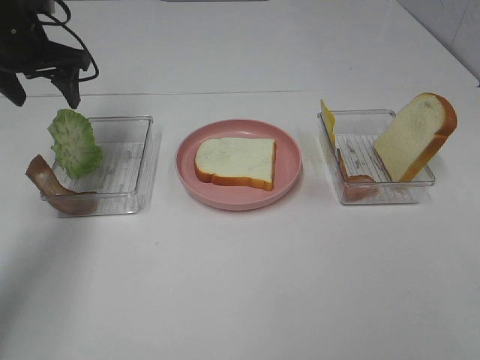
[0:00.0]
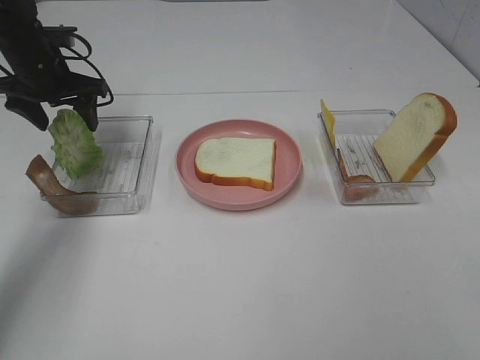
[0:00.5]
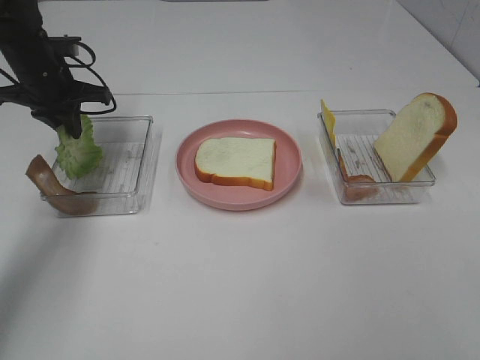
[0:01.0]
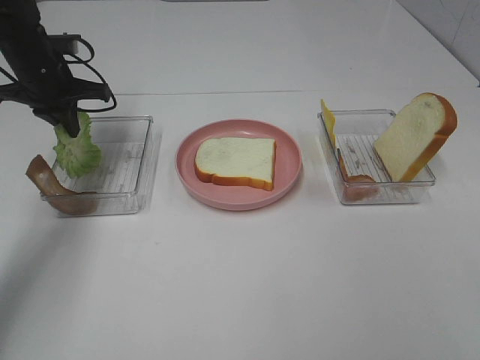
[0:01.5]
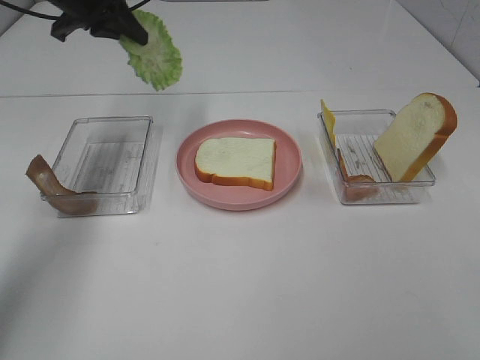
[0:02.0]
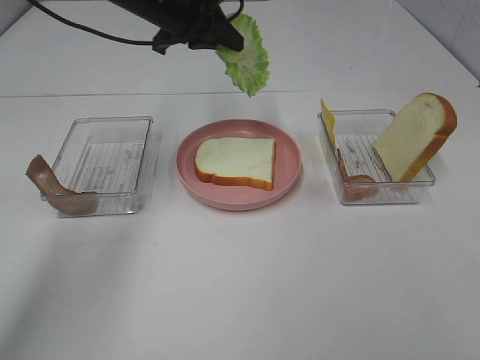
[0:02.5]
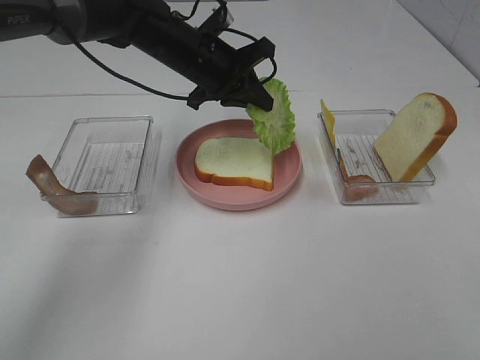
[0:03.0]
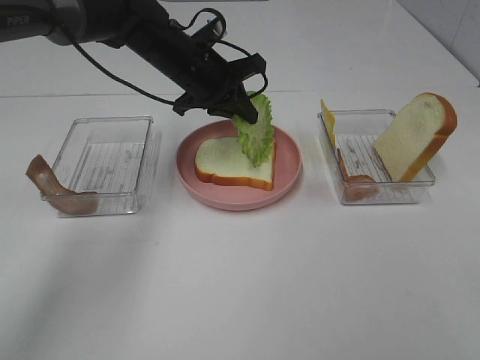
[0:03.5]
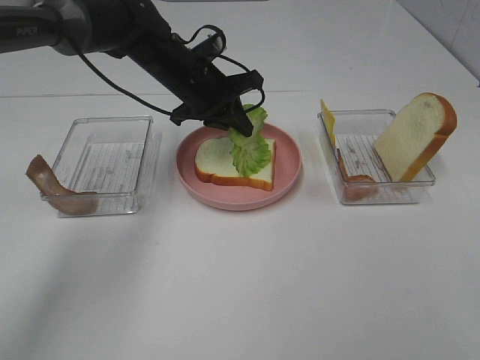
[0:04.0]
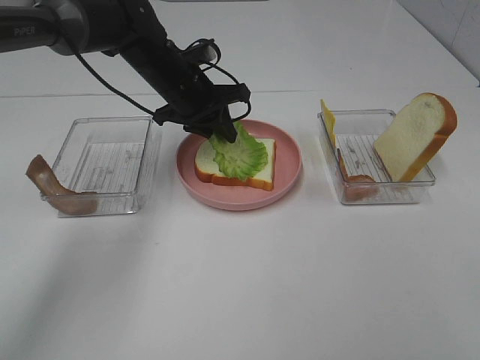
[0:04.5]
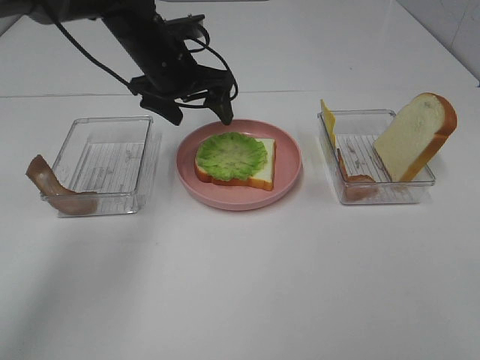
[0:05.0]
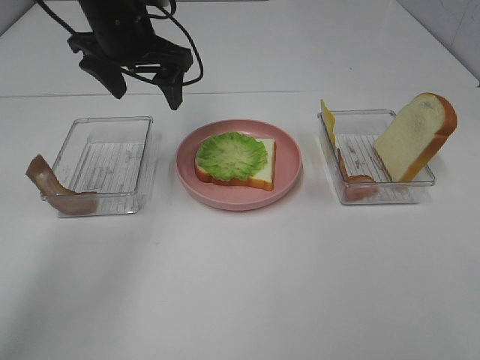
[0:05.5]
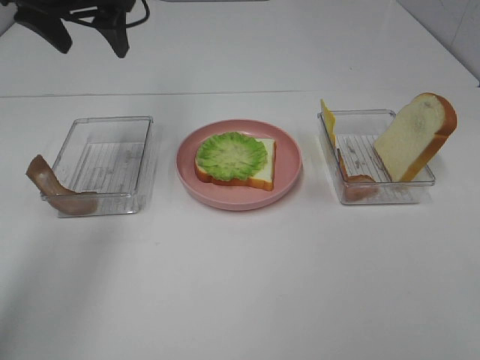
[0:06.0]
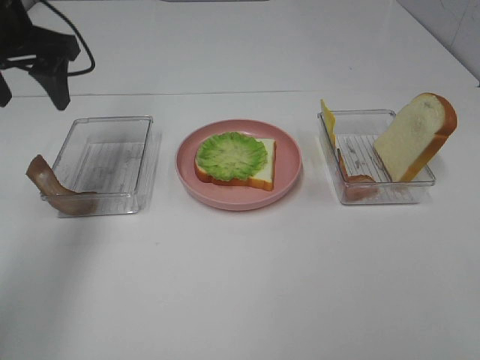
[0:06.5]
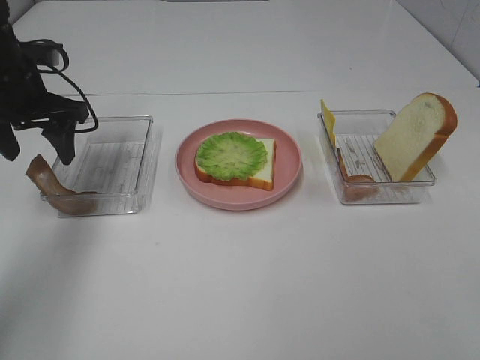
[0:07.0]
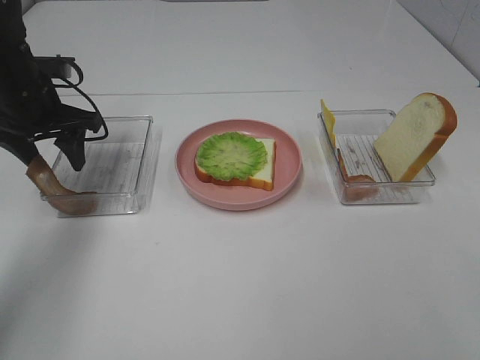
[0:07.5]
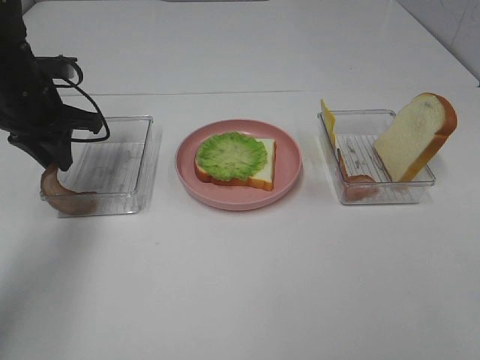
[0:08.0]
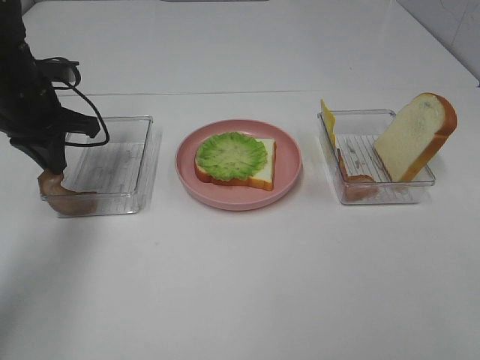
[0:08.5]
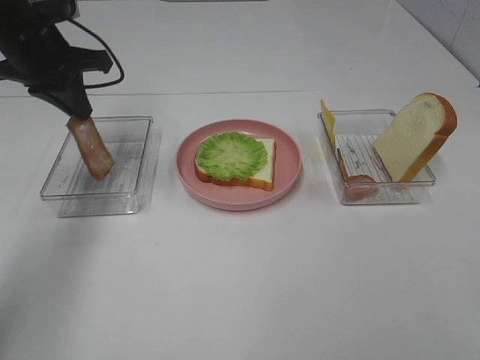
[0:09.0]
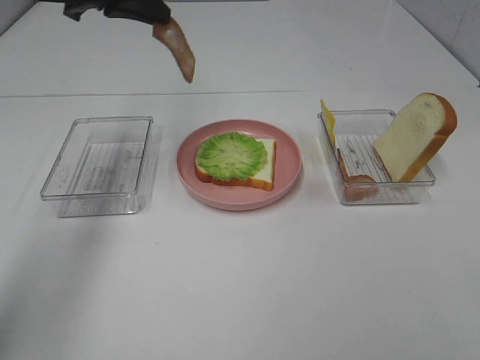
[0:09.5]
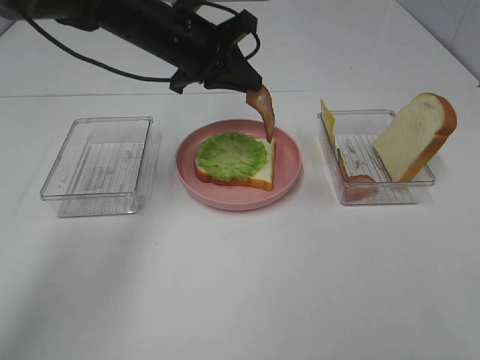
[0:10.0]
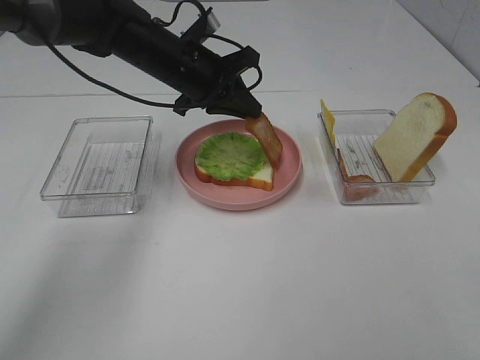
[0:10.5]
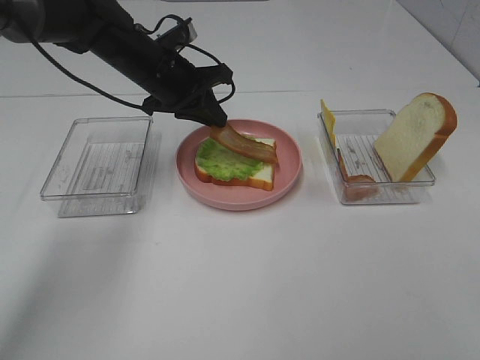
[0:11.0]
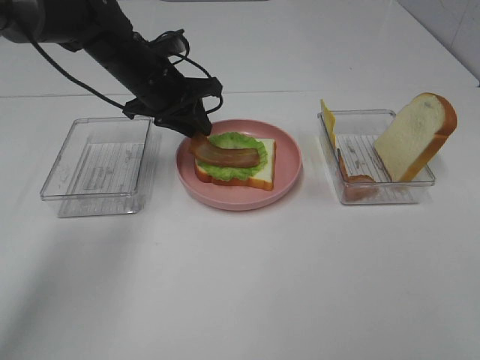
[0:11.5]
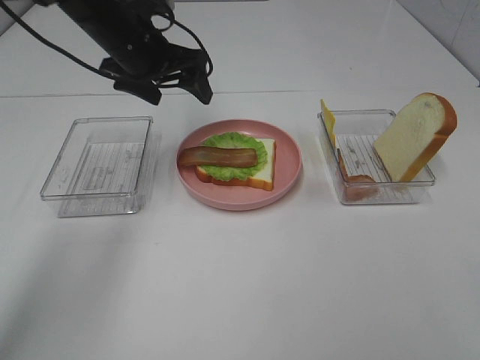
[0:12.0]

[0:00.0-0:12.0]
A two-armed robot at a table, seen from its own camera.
Task of the whole recording: Make sandwiches.
Step, 1.5 to 4.5 s: Left hand:place the lettuce slice on the bread slice.
Step, 5.0 to 8.0 s: Left hand:grab the bacon.
Step, 8.5 to 11.5 s: Left hand:place bacon on lettuce slice.
0.0 to 2.0 s: The left gripper shifts about 5 cm to the right, and closes up.
2.0 to 4.0 s: The left gripper is displaced to the right and downward by about 20 cm.
4.0 to 6.0 s: The left gripper travels upward and to the left by approximately 20 cm, and opens.
6.0 to 8.0 s: The left gripper goes some 15 cm downward, and closes its fingers.
8.0 to 10.0 s: The left gripper goes some 20 cm to the right.
10.0 to 12.0 s: The left gripper heads to the left, covering approximately 5 cm, and opens.

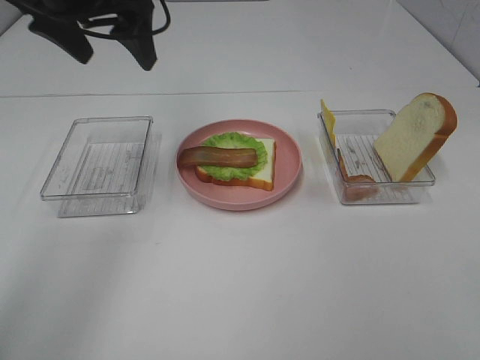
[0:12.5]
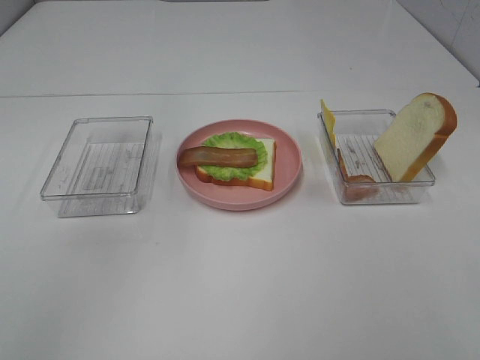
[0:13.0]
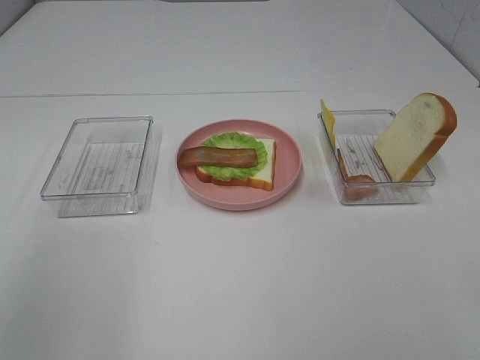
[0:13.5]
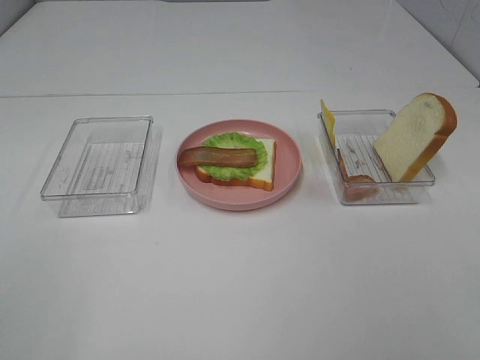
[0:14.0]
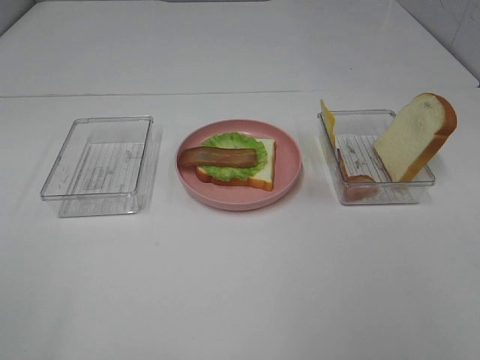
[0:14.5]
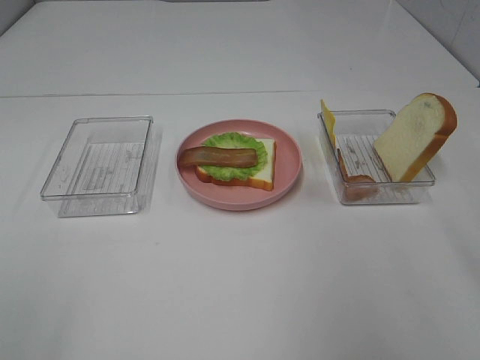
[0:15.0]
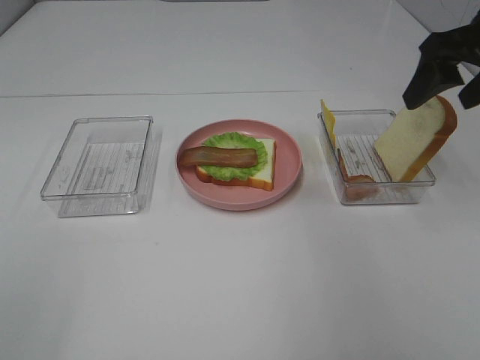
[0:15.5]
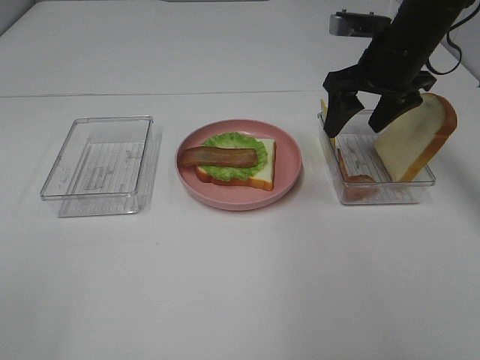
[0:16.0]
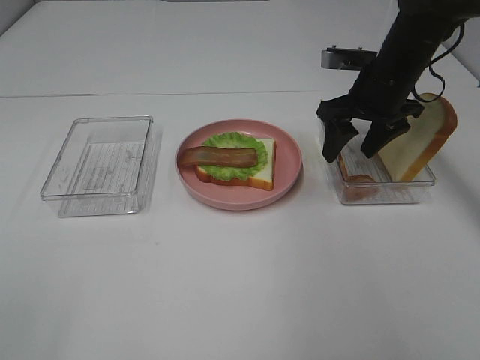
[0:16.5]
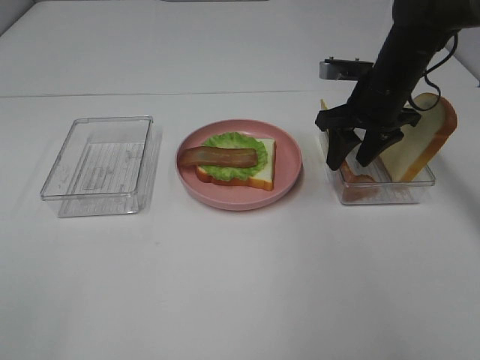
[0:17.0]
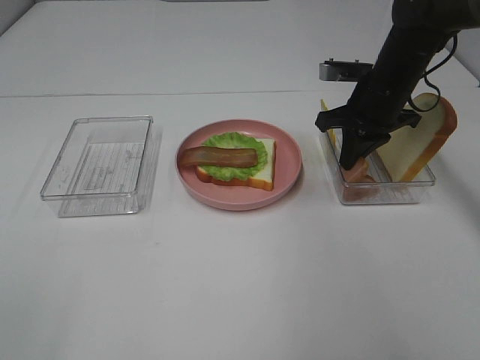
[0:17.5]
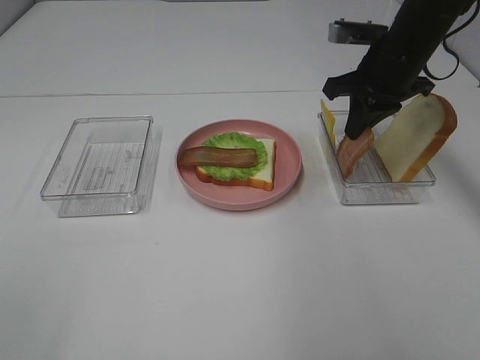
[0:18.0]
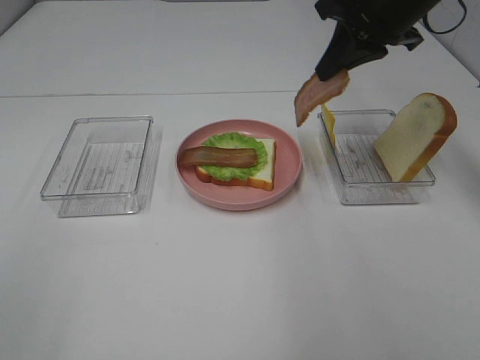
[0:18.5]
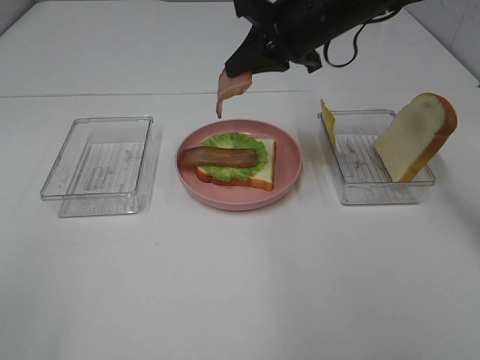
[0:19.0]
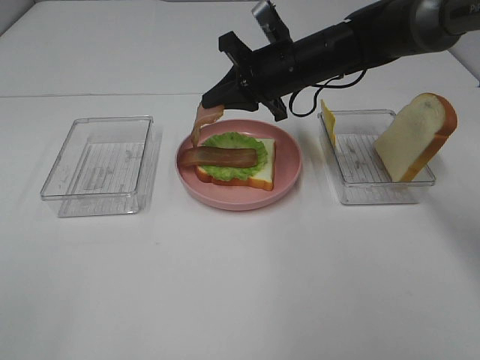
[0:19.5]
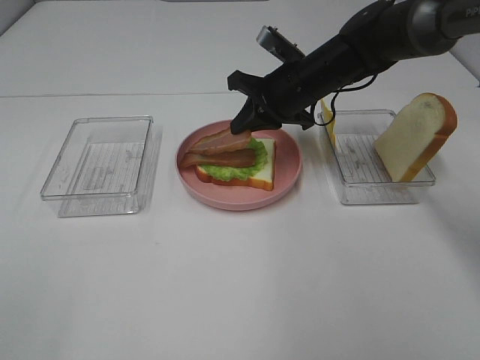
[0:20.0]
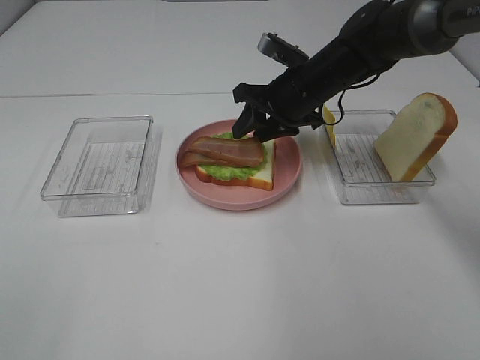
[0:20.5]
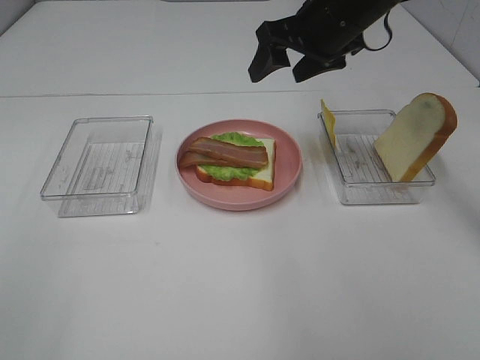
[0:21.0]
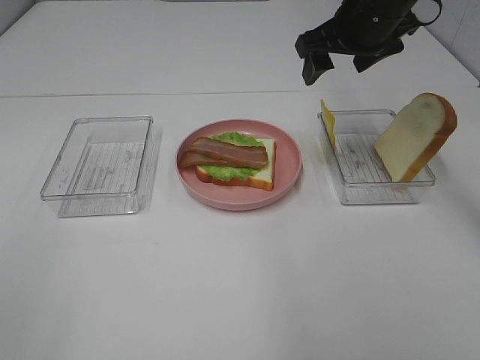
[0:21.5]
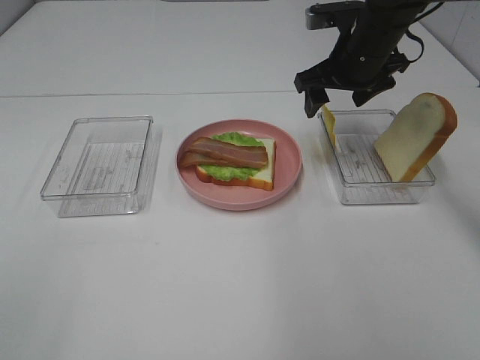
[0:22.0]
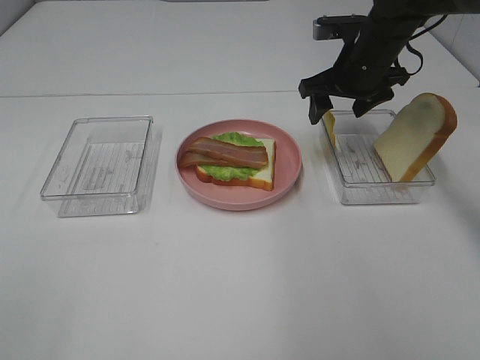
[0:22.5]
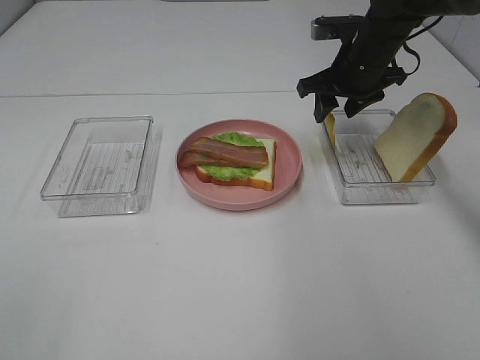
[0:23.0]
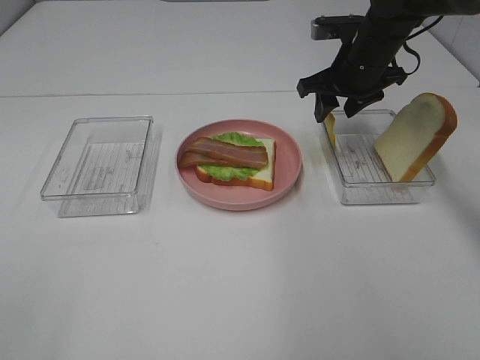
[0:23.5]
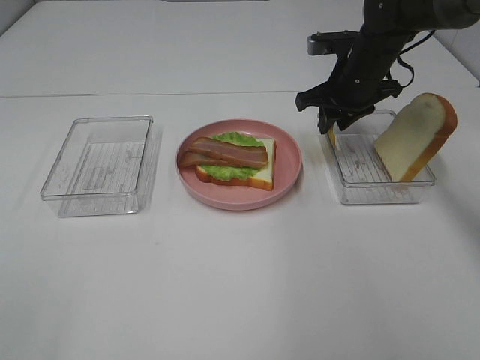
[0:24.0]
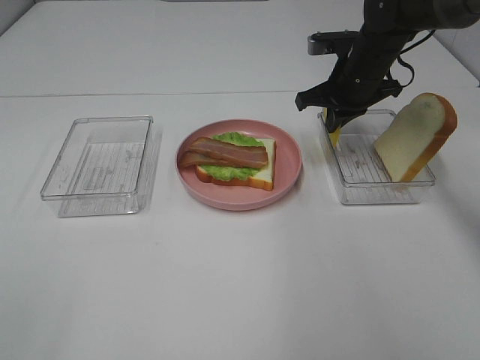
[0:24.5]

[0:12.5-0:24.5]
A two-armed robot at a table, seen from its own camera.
Task of the whole recording: Make sandwiches.
Step, 12.5 to 17.0 s: Right hand:grab the bacon.
Step, 17.5 to 20.5 s: Right hand:place bacon on bacon.
Step, 21.0 to 24.5 s: Right hand:grab the cheese slice.
12.5 to 14.5 s: The left gripper goes roughly 40 cm backward.
14.5 to 16.5 s: The right gripper goes some 40 cm forward.
16.5 to 18.5 s: The right gripper goes approximately 10 cm upward, and closes.
18.5 to 20.5 s: The right gripper is displaced downward and to the left by approximately 15 cm, and opens up.
20.5 to 22.5 s: The right gripper travels to the right by about 5 cm, and travels upward and back again, about 10 cm each way.
22.5 to 24.5 s: The right gripper closes up.

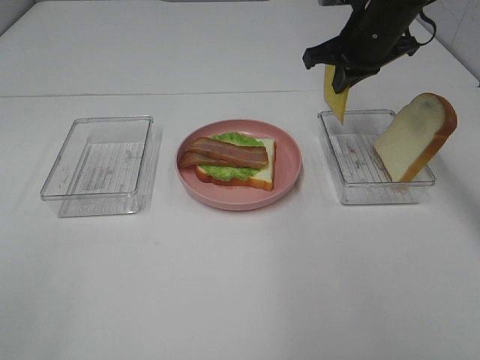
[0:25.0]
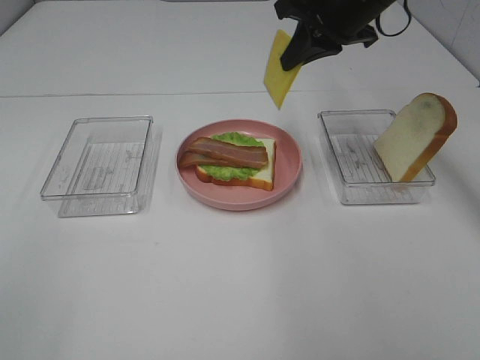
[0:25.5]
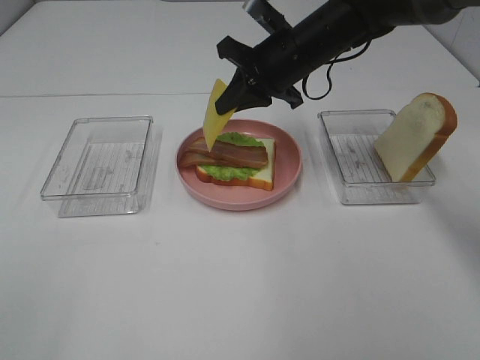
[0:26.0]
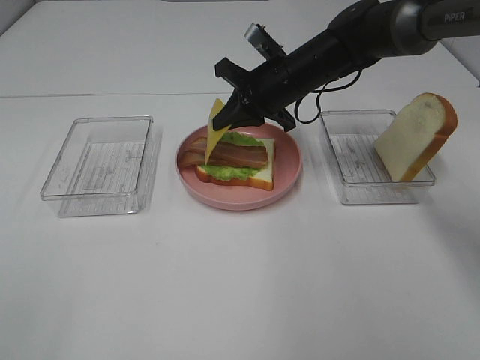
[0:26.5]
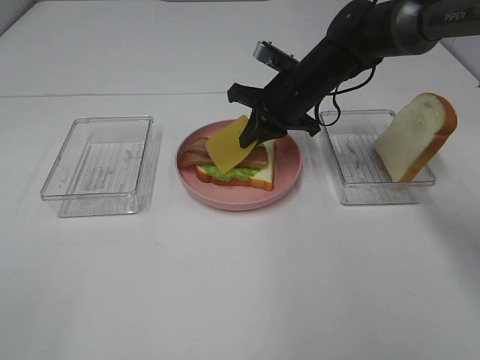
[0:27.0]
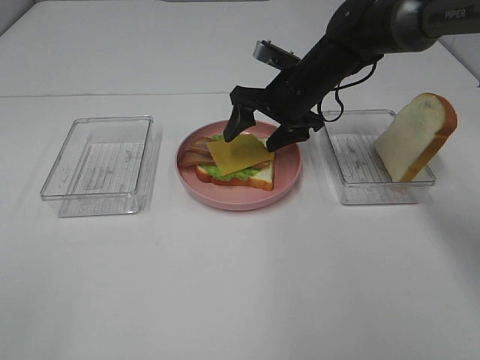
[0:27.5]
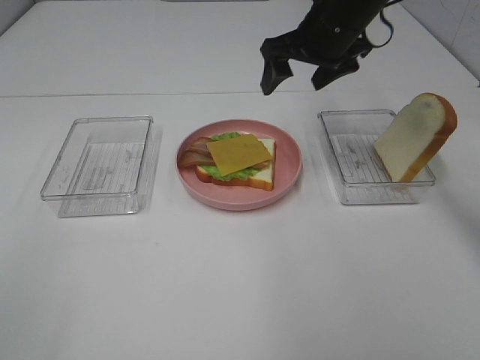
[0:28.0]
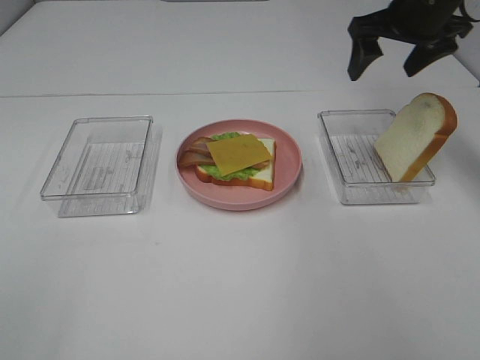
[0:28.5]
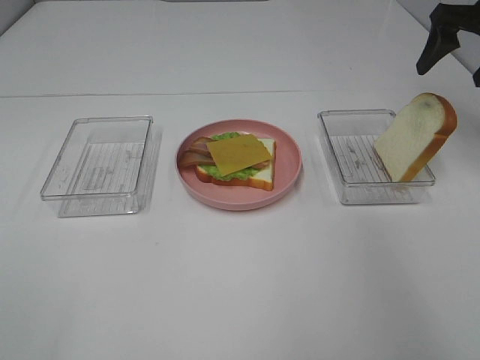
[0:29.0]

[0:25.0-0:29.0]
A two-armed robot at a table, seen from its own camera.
Task of the whole recording: Make sandwiches.
Step, 25.0 to 27.5 s: Right hand:place the cheese slice on top of the bacon.
25.0 to 27.0 s: The right gripper shifts about 10 cm downward and to the left.
27.0 to 29.0 s: The right gripper heads to the right and upward, covering about 25 cm, and opens up.
